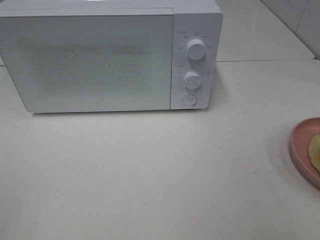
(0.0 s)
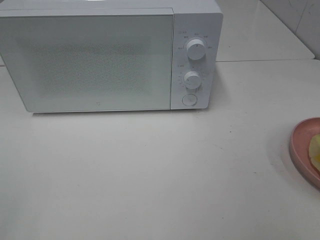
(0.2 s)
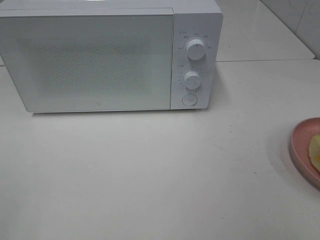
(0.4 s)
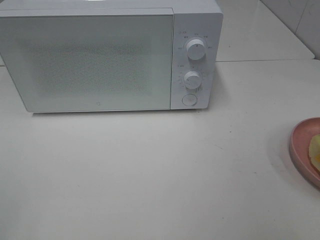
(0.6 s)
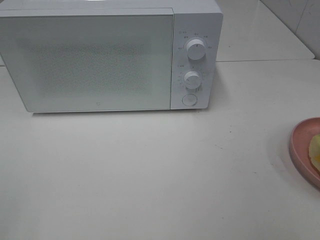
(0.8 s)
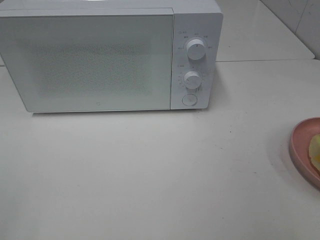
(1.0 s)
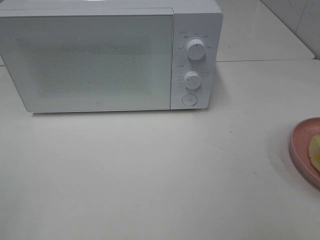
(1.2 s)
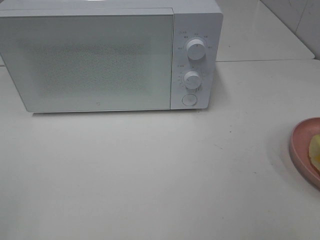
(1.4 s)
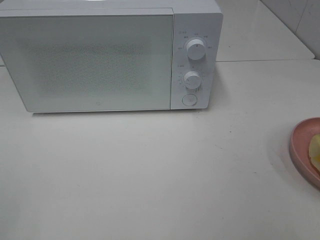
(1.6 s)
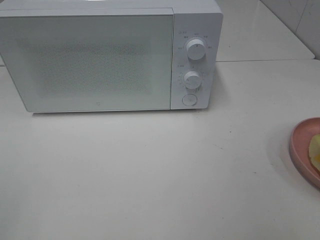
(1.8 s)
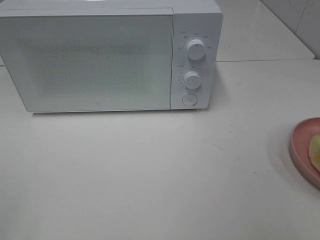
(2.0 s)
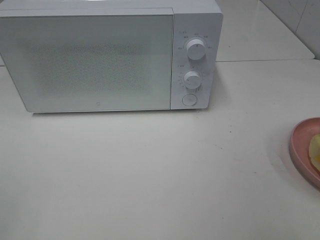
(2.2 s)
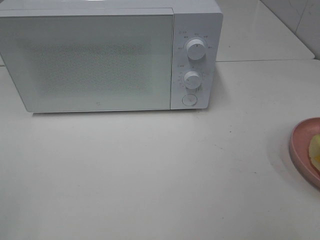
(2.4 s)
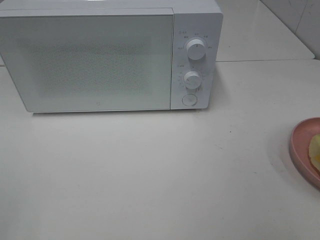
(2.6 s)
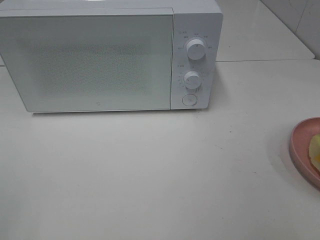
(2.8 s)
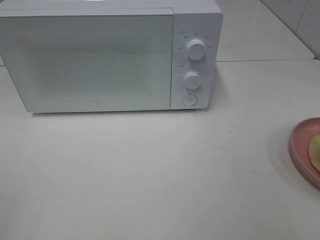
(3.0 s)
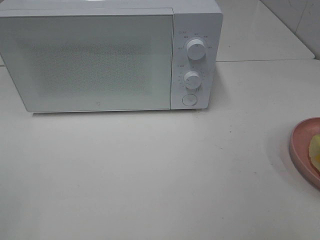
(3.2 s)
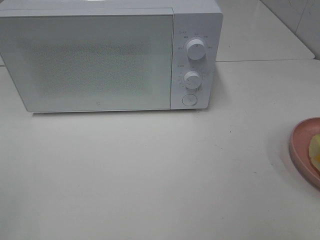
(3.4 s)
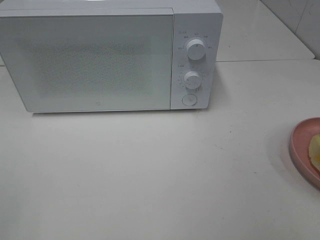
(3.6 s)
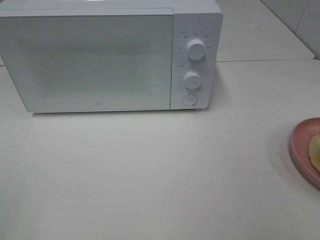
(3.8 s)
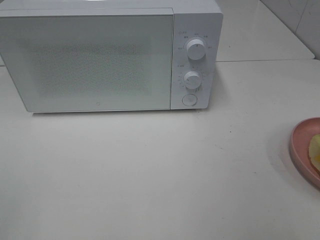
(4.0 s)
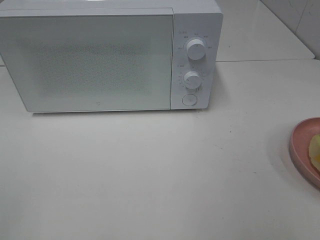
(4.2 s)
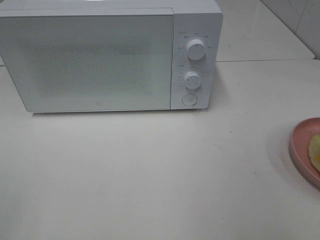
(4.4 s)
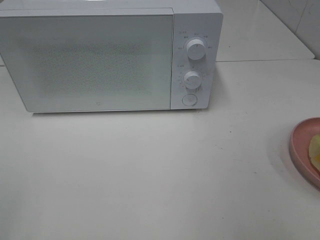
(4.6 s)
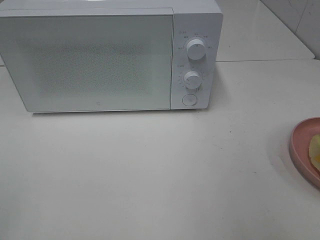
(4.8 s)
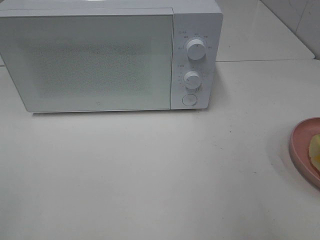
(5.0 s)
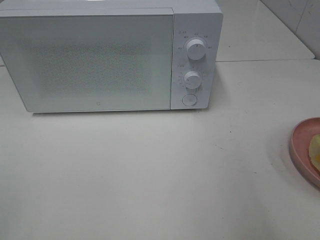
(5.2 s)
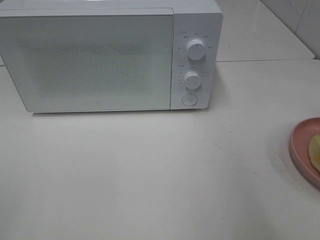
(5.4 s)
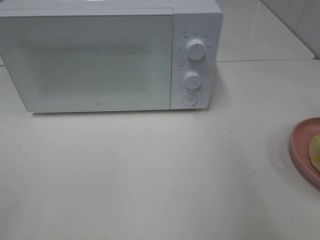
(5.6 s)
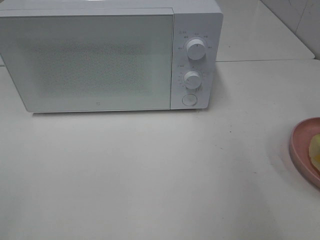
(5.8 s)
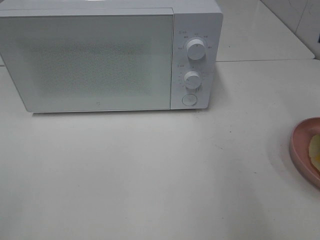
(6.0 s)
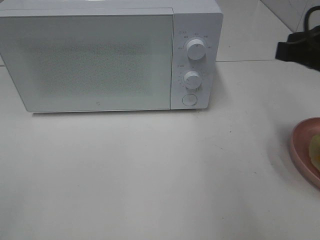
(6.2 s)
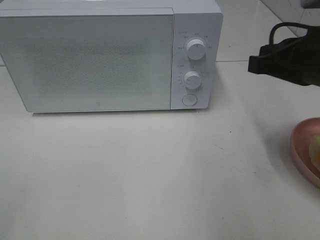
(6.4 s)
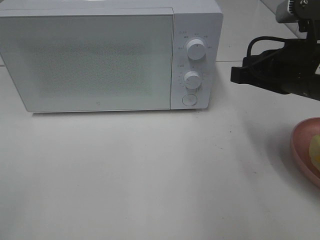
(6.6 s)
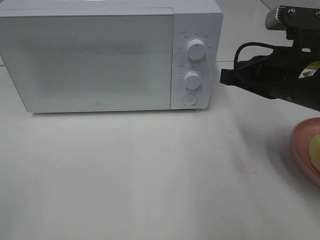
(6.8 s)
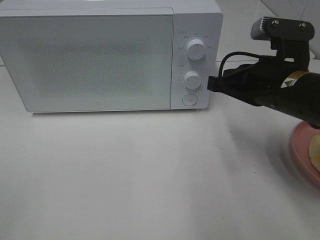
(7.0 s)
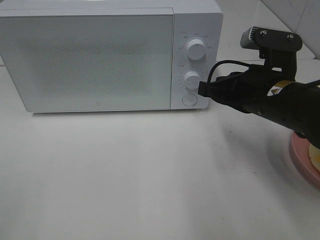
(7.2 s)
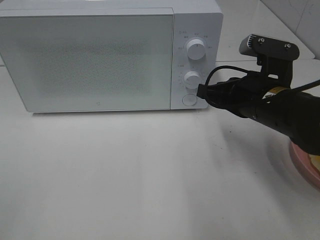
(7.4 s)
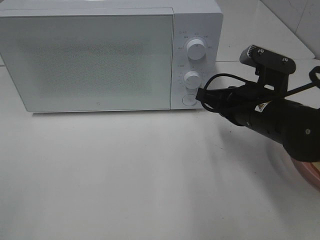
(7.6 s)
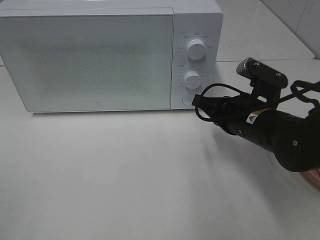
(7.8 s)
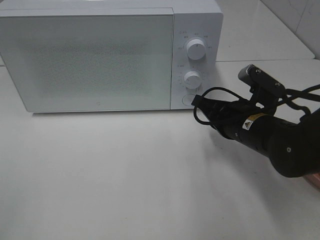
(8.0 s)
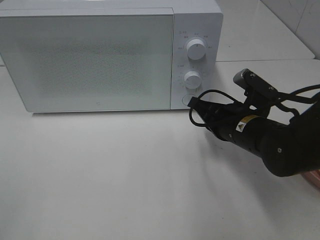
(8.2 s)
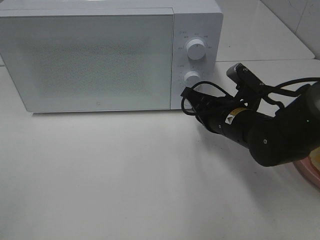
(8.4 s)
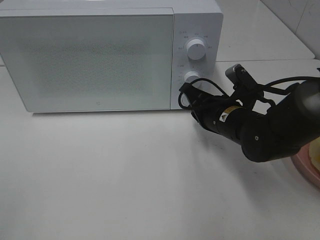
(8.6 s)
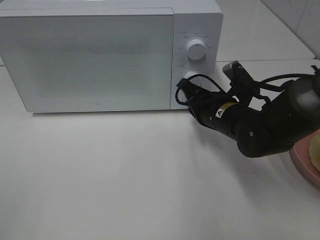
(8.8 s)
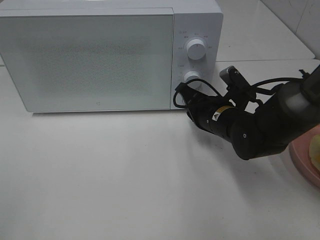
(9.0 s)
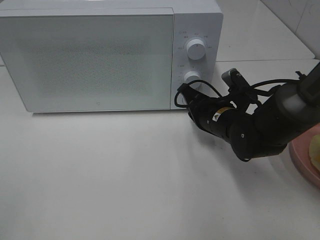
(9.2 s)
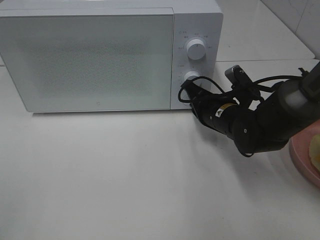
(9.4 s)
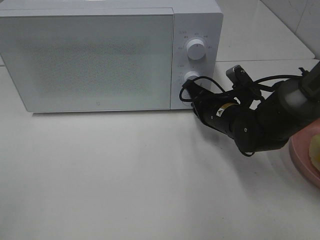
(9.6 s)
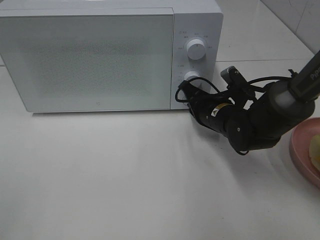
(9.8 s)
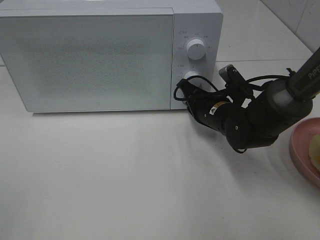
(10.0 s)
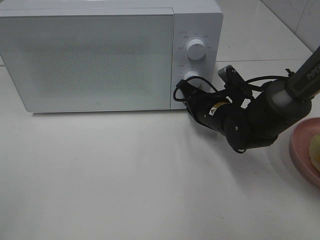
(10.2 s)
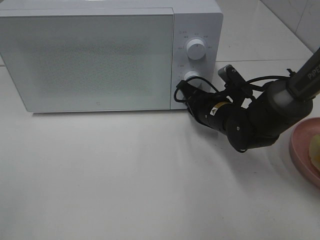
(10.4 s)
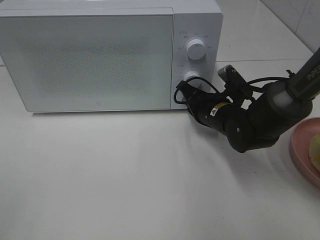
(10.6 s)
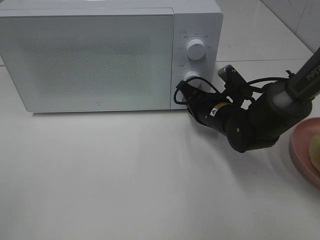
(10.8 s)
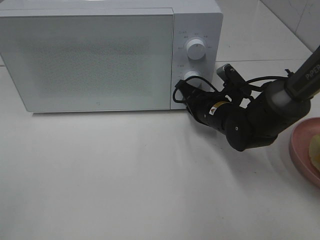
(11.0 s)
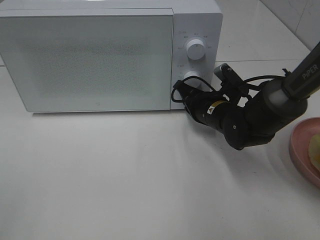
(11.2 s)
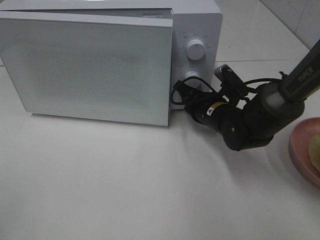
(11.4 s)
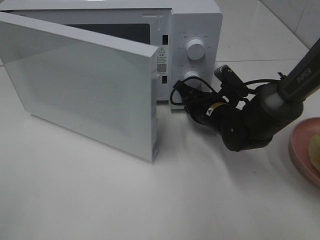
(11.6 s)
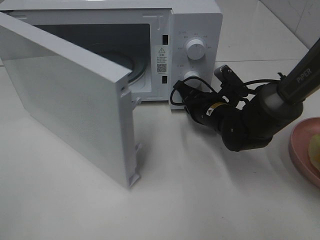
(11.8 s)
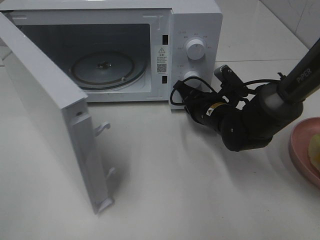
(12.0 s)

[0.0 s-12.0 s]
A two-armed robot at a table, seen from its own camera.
Task of the whole recording: Heat Sandwich.
0.0 to 3.0 s: The two grippers keep their place.
6.0 to 7.6 s: The right gripper goes roughly 20 cm downward, to the left and forward.
7.6 to 9.0 s: The right gripper goes some 10 cm downward and forward.
9.0 to 10.4 s: The grippers move only a little.

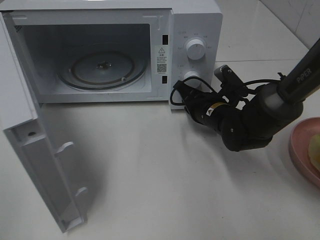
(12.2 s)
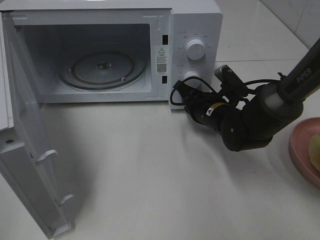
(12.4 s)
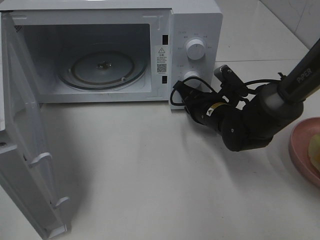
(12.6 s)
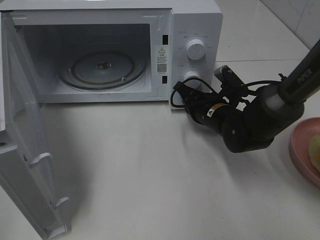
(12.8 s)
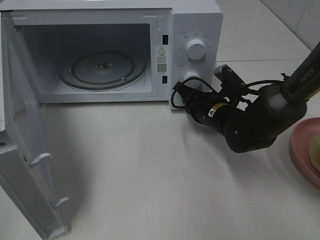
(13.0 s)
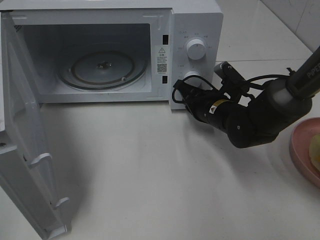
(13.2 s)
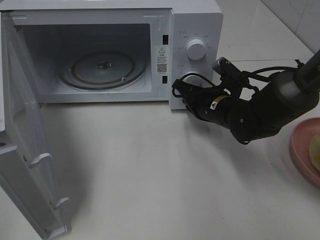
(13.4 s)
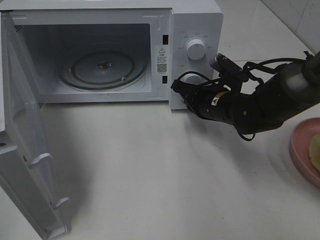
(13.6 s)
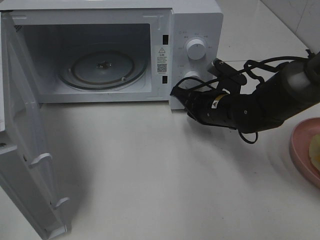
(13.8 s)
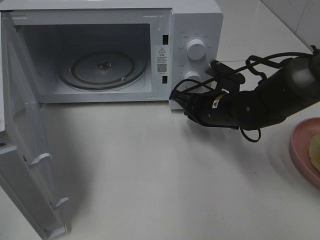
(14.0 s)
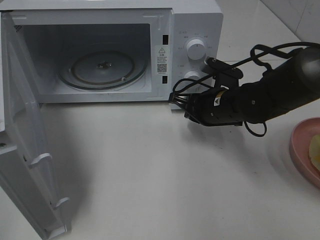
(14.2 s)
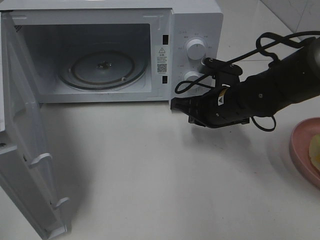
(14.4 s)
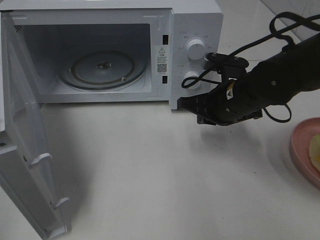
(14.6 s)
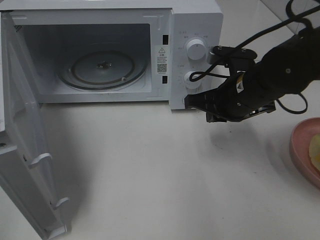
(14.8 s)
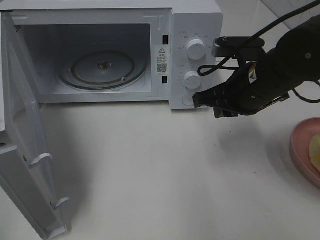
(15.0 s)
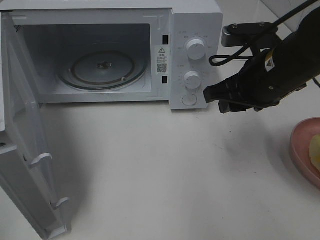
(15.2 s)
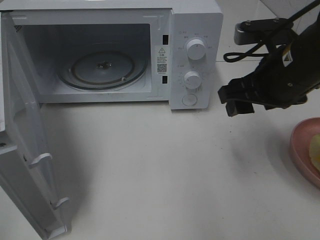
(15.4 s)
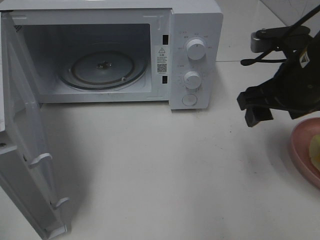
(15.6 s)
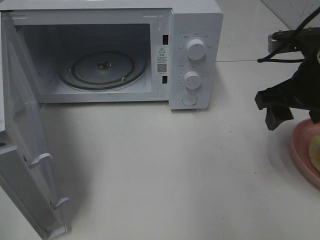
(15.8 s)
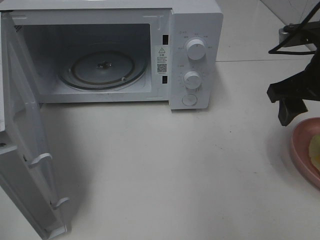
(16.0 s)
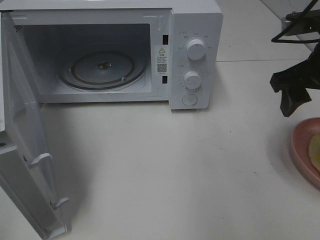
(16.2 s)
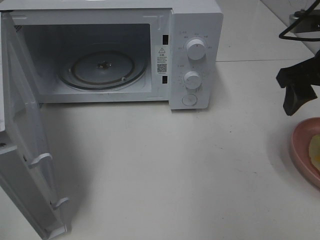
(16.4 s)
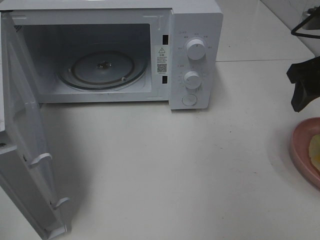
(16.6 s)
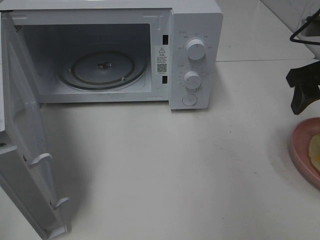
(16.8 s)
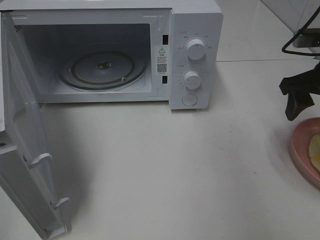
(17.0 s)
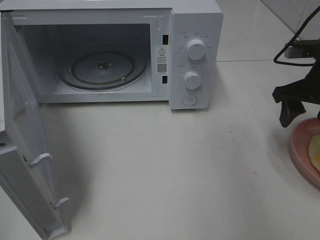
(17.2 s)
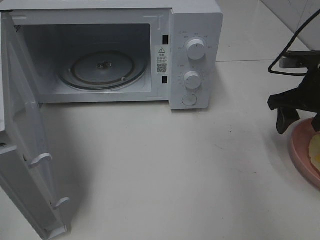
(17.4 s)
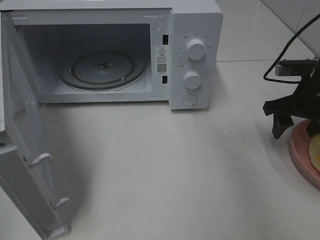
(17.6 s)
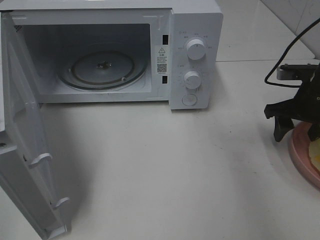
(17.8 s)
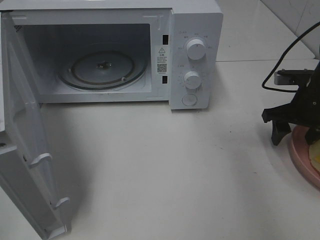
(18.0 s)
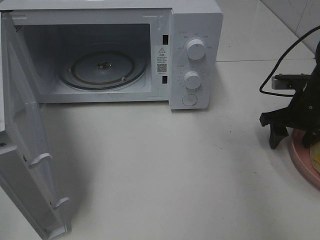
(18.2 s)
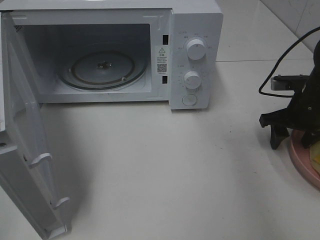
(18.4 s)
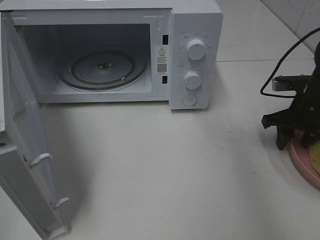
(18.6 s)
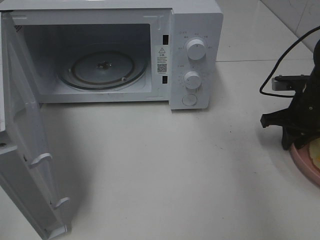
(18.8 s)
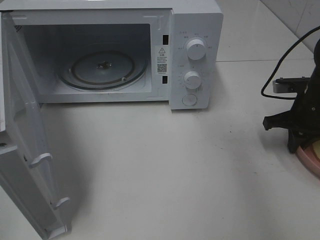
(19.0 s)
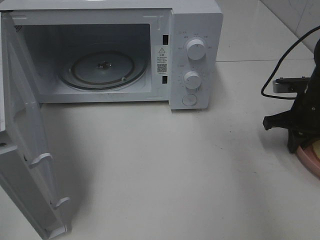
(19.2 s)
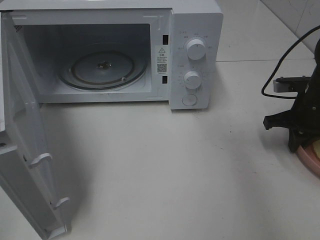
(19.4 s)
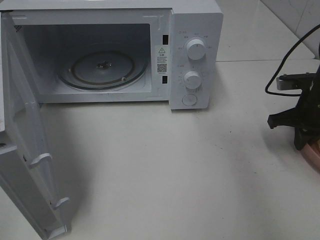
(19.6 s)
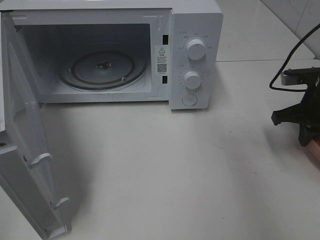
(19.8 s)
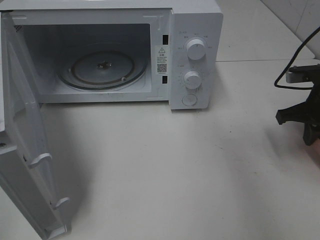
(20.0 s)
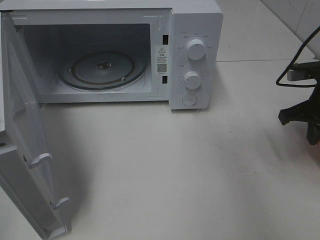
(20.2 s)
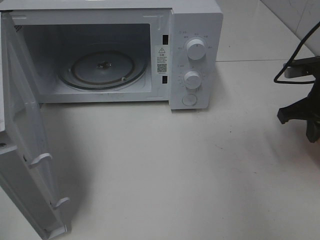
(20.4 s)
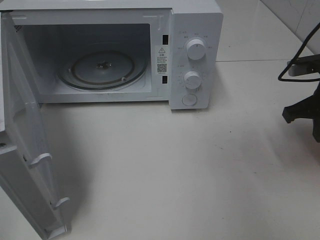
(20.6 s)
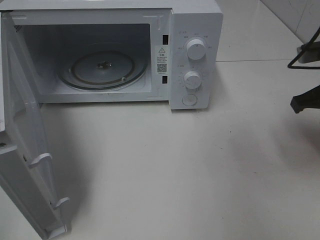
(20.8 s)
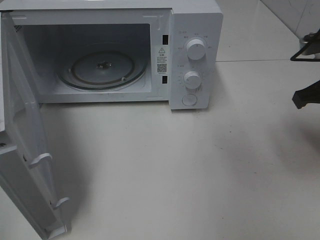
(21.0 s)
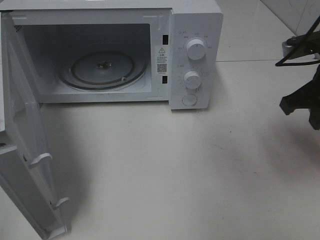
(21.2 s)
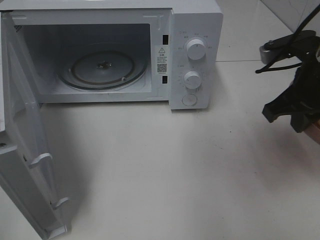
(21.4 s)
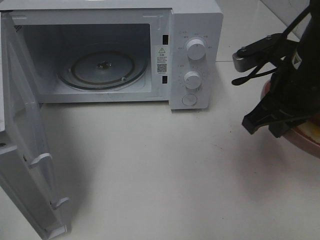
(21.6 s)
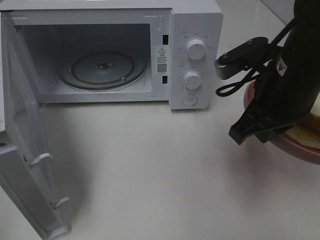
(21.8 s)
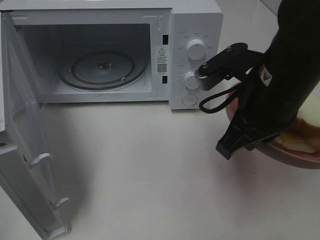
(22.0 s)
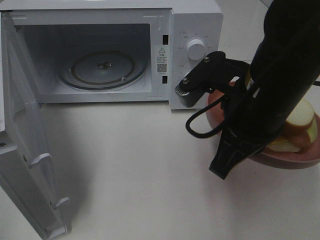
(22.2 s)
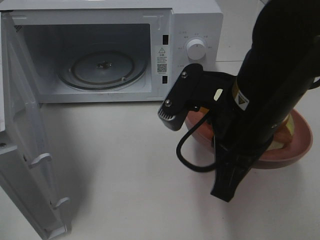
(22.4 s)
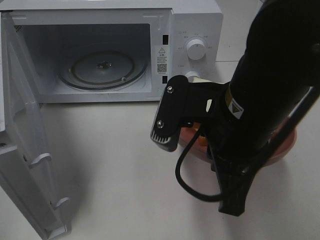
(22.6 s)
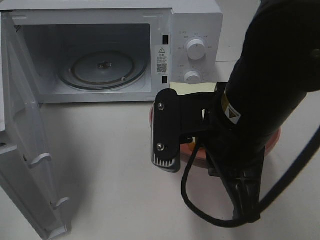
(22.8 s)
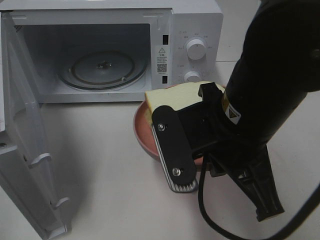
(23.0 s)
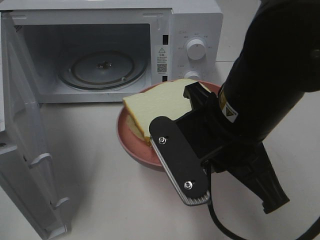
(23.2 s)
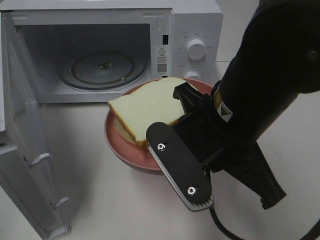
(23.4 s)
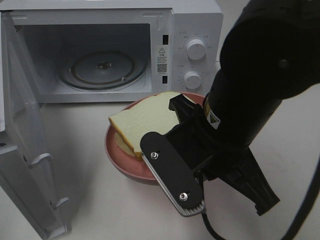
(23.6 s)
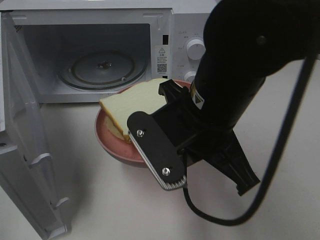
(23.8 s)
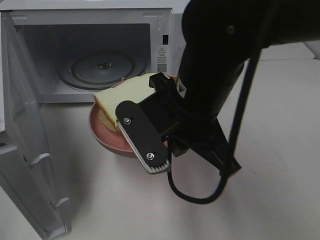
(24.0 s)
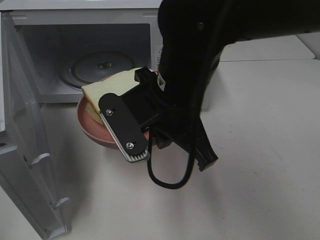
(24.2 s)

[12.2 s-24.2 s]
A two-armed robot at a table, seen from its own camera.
Task of the whole recording: Heat Sandwich.
Step, 12.2 to 14.4 s: Right hand: press the switch.
Step, 14.6 to 19.6 s: Right hand: grab the plate with the sandwich.
12.2 to 13.8 s: The grippers make only small movements.
13.8 to 15.2 s: The right gripper heads upward and backward, covering some 15 cm, and opens.
15.2 to 16.6 s: The right gripper goes about 10 cm to the right, and opens.
16.6 to 18.2 s: The right gripper goes approximately 15 cm downward and forward.
18.2 to 19.8 s: The right gripper closes its fingers.
19.8 to 21.2 s: The right gripper is displaced upward, backward and to the left by roughly 10 cm.
21.2 to 22.6 s: The right gripper is displaced to the left and backward by roughly 20 cm.
22.6 to 24.2 s: The right gripper goes about 10 cm to the left and forward.
